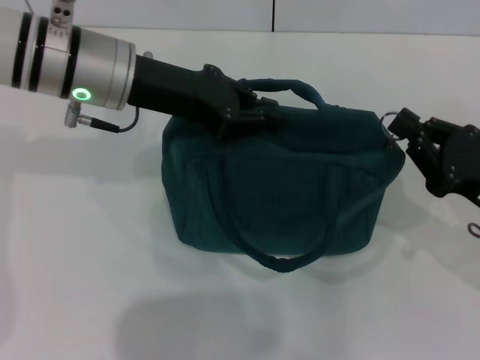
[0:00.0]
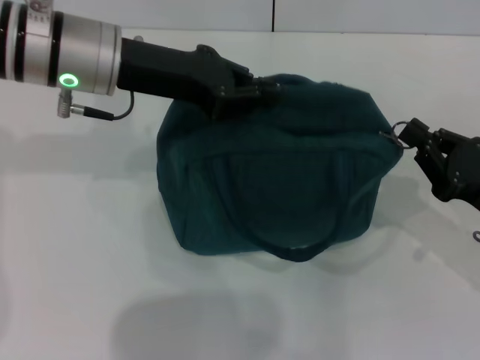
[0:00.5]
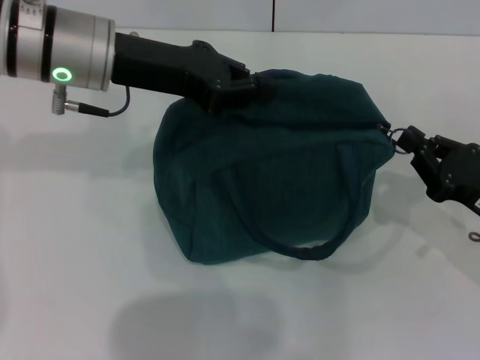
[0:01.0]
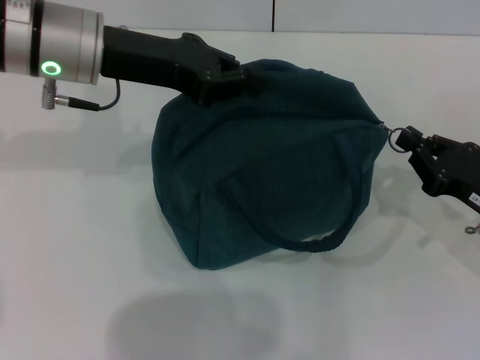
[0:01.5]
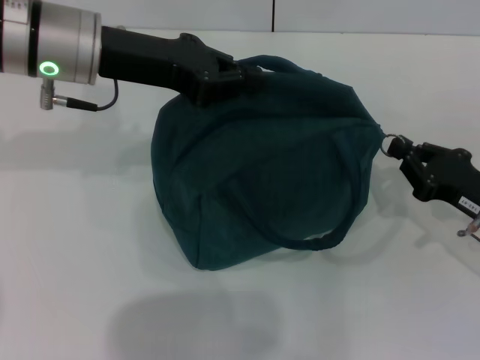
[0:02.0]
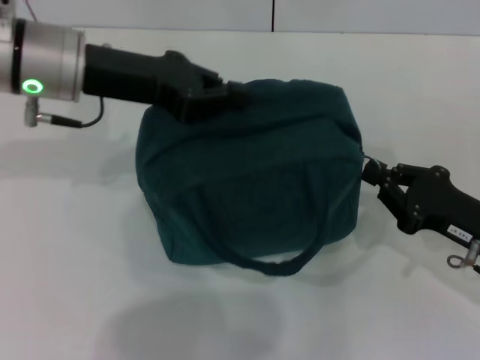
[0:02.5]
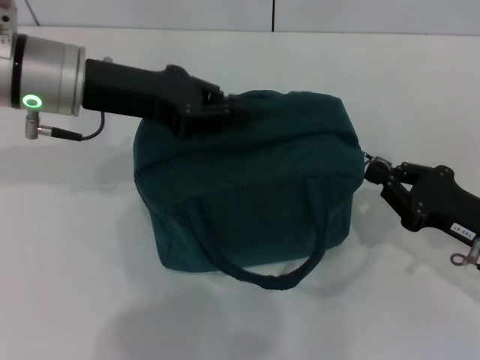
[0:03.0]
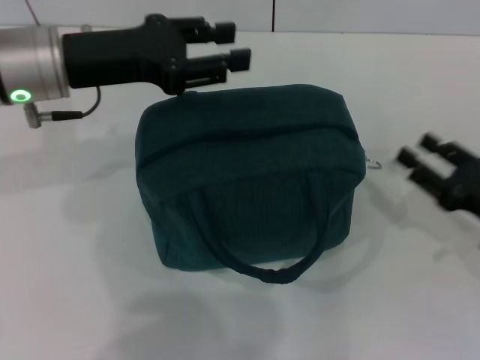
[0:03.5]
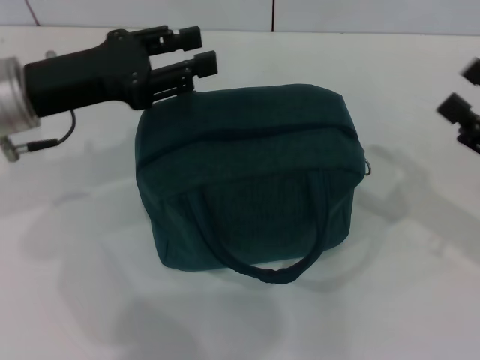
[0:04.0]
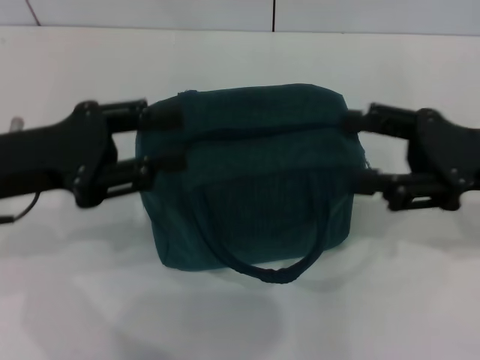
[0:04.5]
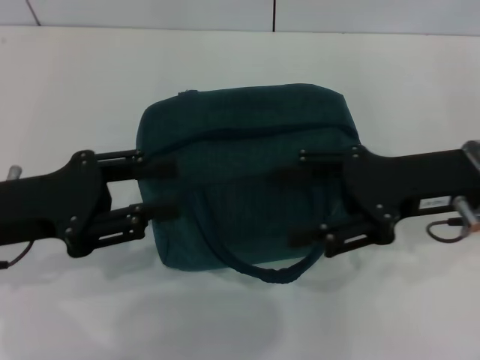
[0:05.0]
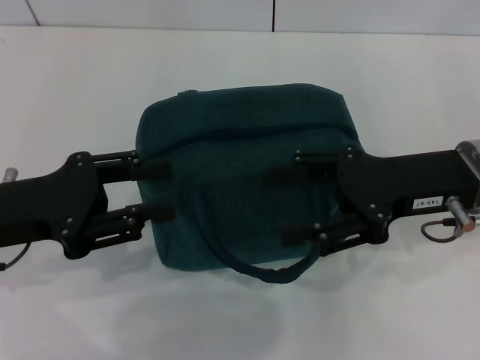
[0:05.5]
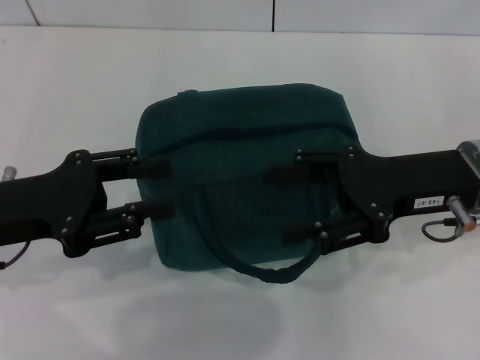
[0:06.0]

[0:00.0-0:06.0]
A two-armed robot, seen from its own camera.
Step, 0:00.0 to 0:03.0: Hold the lunch bag with your left hand.
0:00.0 to 0:02.0: The grippers move only a little.
0:02.0 to 0:04.0: The right gripper travels upward by approximately 5 cm, and opens. The left gripper goes some 5 cm to the left, and opens up.
0:04.0 to 0:06.0: The left gripper is displaced backward by approximately 10 cm, while the right gripper is displaced to the left by approximately 10 cm.

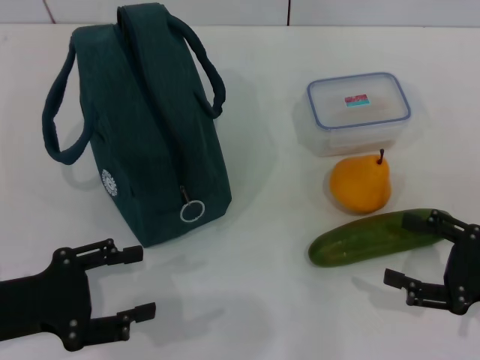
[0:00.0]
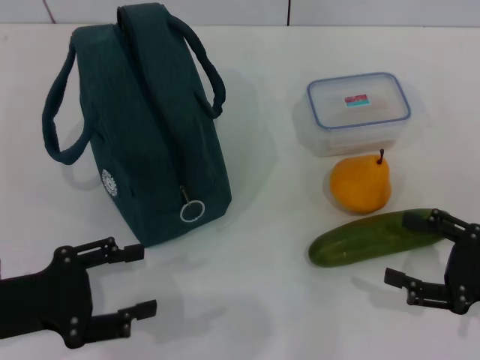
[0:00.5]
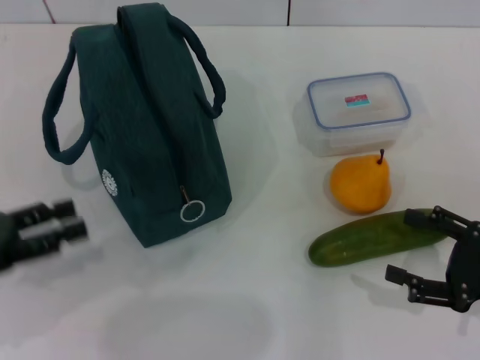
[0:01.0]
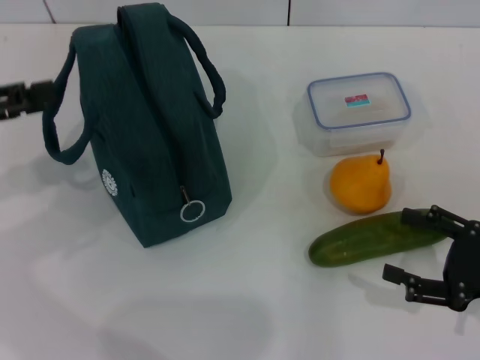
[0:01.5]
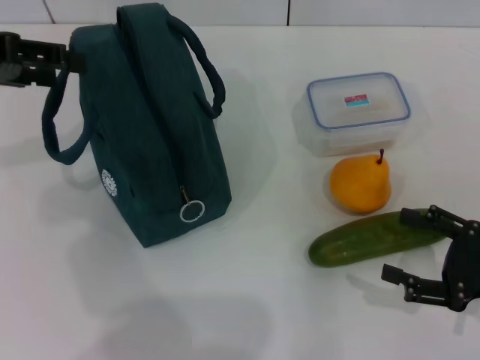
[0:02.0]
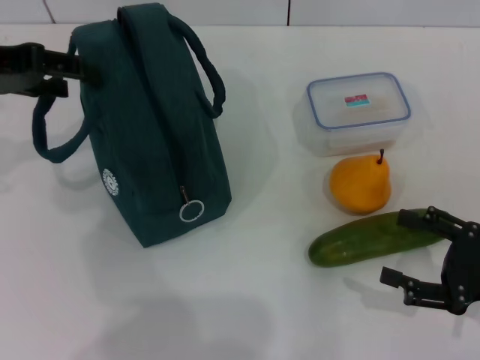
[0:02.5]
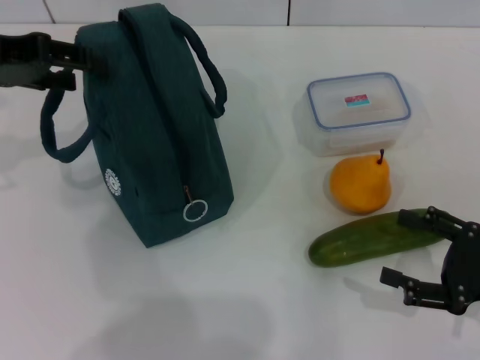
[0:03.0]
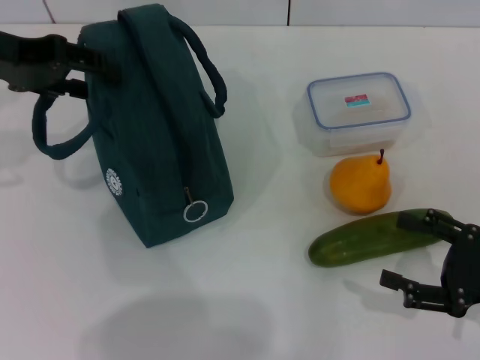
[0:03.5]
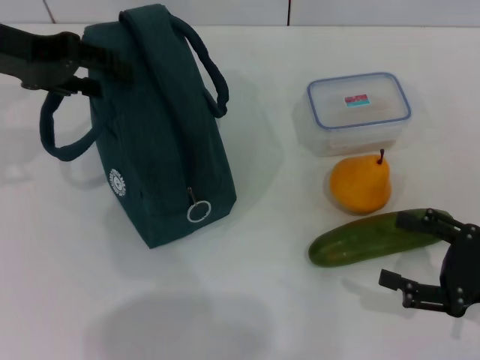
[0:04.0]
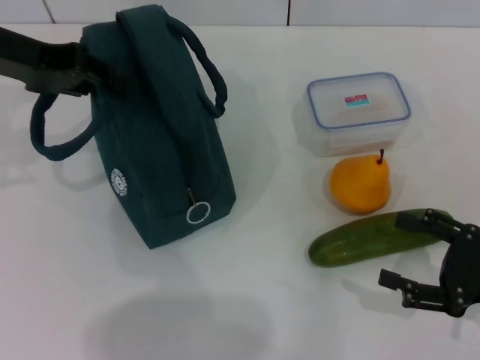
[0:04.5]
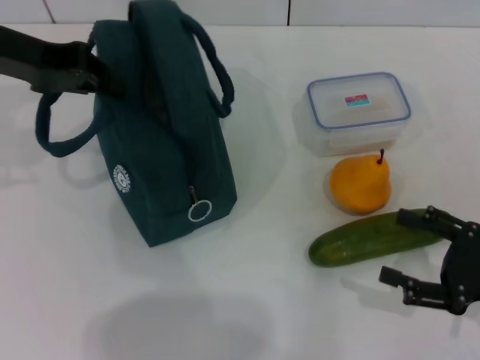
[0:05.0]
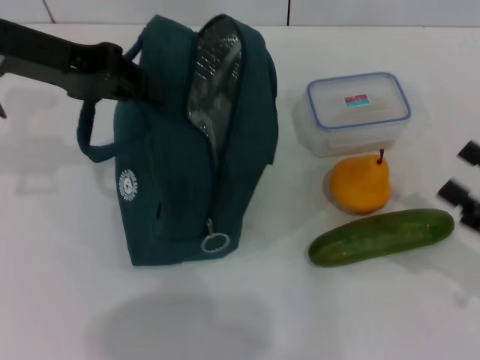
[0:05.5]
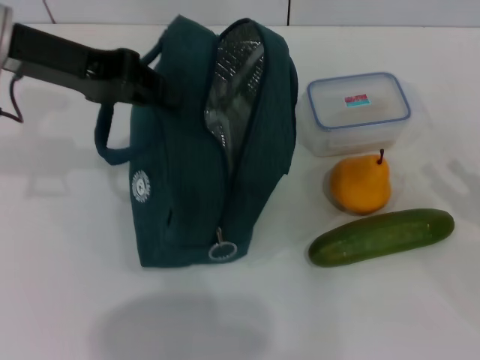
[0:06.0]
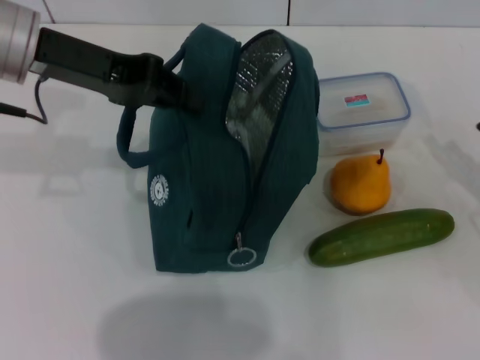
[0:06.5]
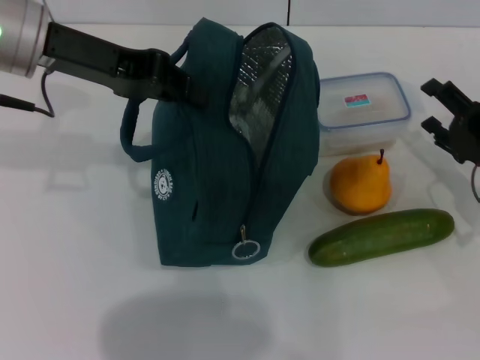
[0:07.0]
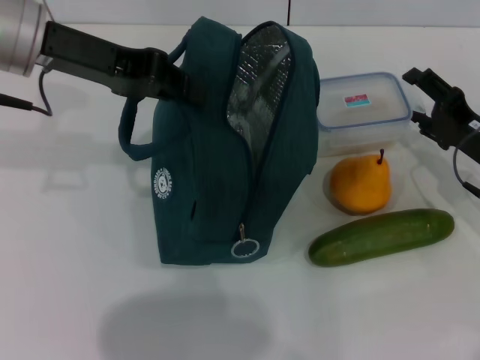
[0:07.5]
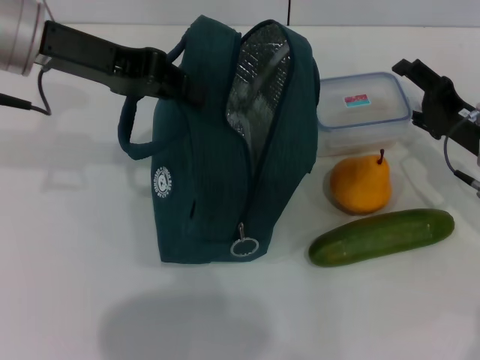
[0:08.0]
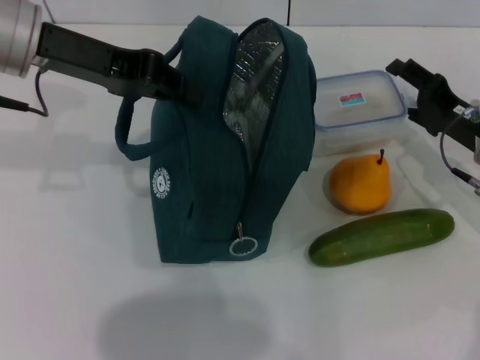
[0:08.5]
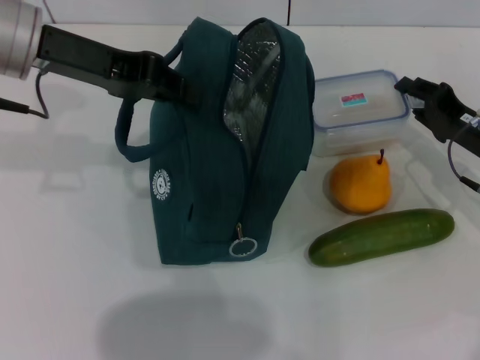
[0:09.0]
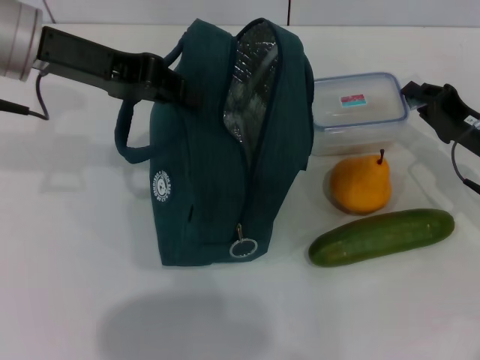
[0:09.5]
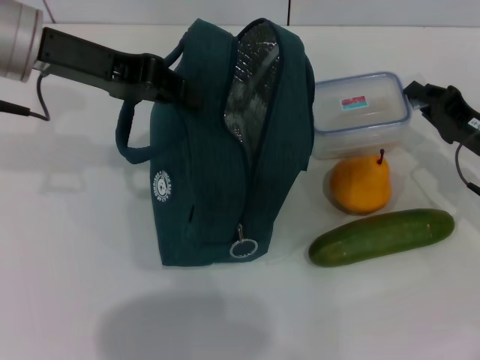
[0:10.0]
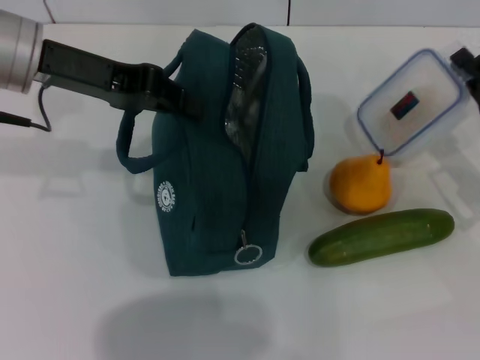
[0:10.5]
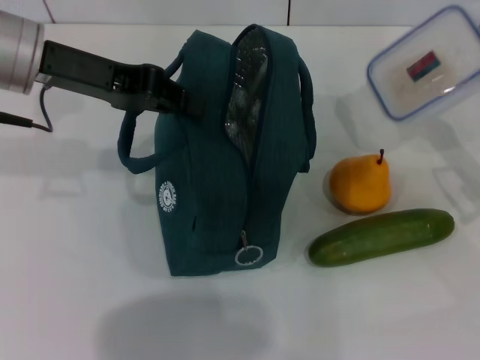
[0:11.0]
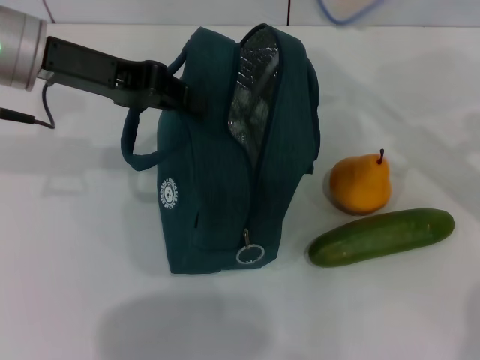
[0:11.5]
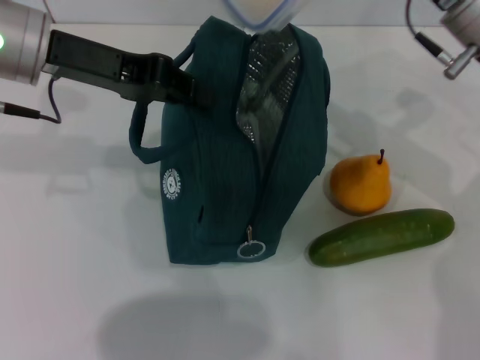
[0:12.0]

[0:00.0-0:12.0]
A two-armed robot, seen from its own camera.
Step, 0:00.0 to 0:04.5: Hold the lunch bag with your left hand.
Step, 0:05.0 to 0:09.5: Pick up the lunch box with your right hand.
0:00.0 to 0:02.0: The left gripper moves upward and forward, approximately 25 cm.
0:02.0 to 0:04.0: The left gripper ends up roughly 5 cm from where it was.
0:04.0 to 0:06.0: The left gripper closes its fingers.
0:06.0 to 0:08.0: The right gripper is displaced forward and to the left by some 15 cm.
0:08.0 to 0:10.0: The right gripper closes its fingers.
0:10.0 to 0:12.0: The right gripper goes about 15 cm upward and to the left.

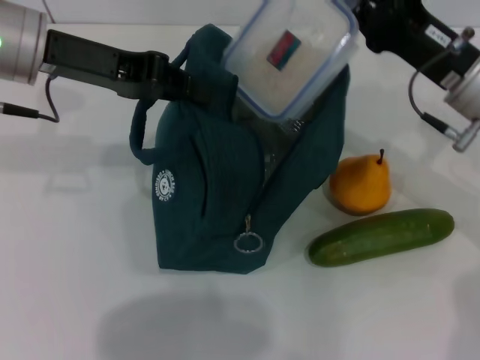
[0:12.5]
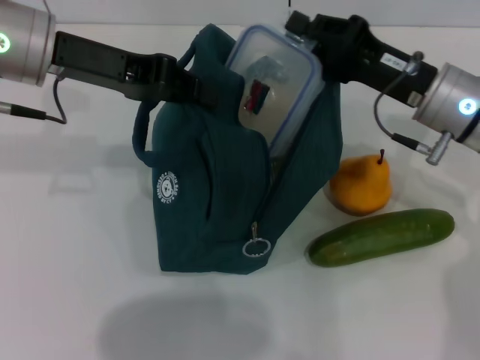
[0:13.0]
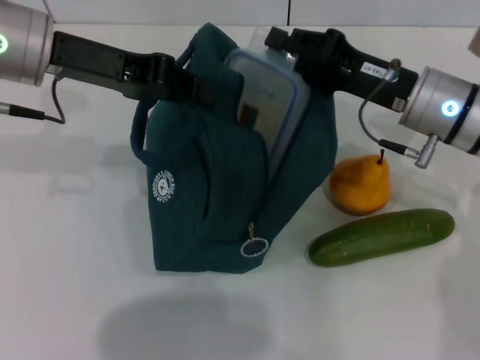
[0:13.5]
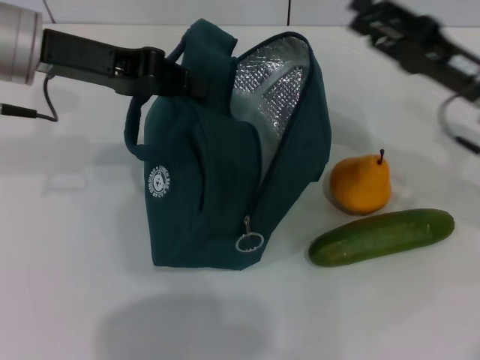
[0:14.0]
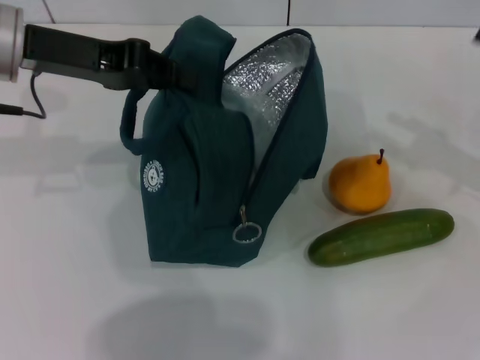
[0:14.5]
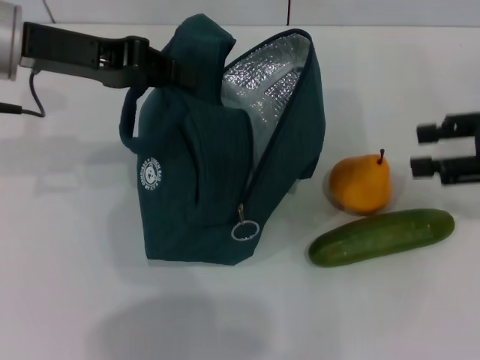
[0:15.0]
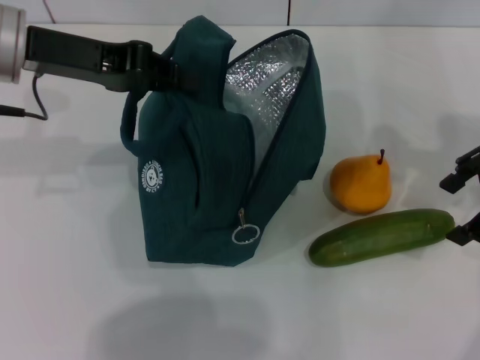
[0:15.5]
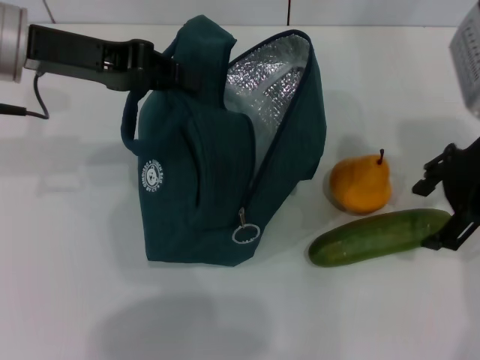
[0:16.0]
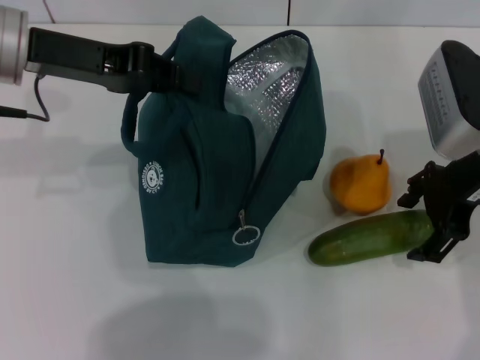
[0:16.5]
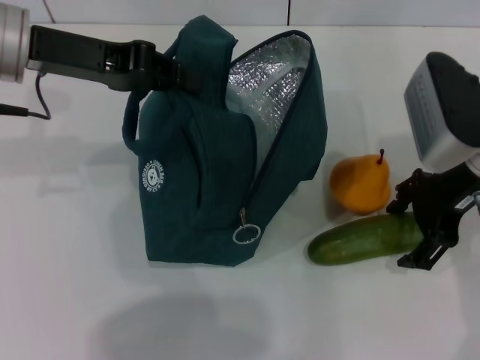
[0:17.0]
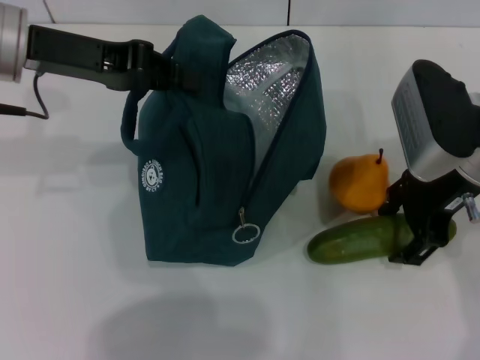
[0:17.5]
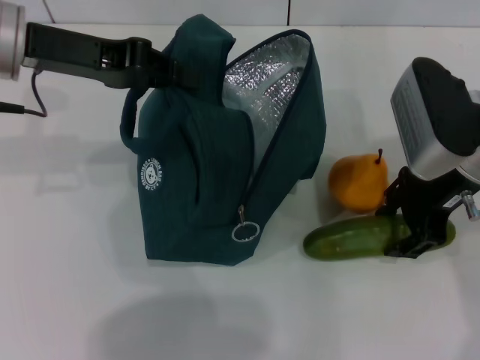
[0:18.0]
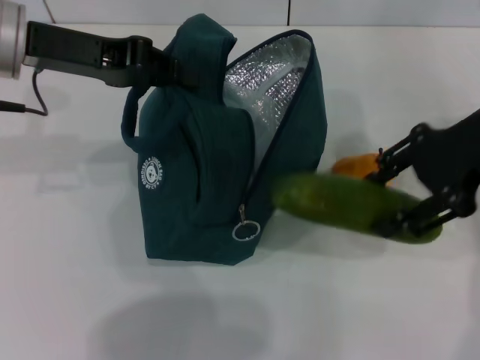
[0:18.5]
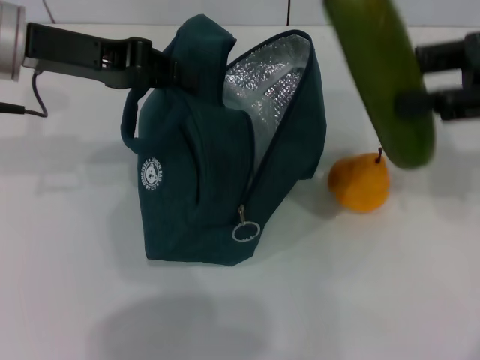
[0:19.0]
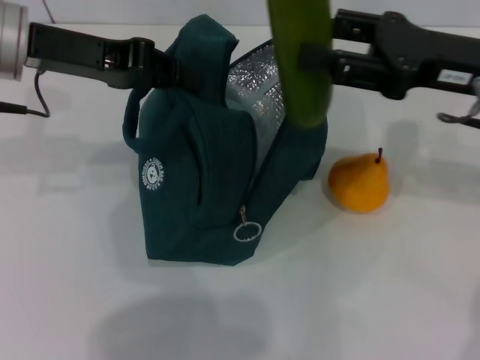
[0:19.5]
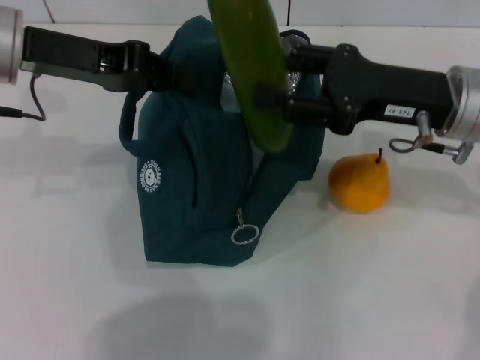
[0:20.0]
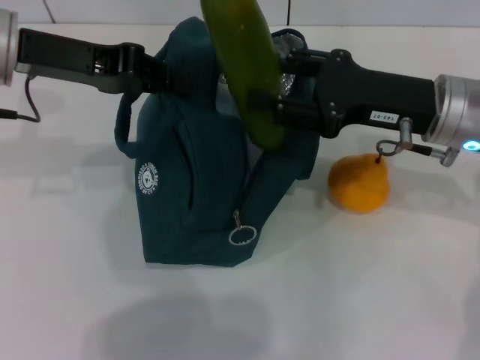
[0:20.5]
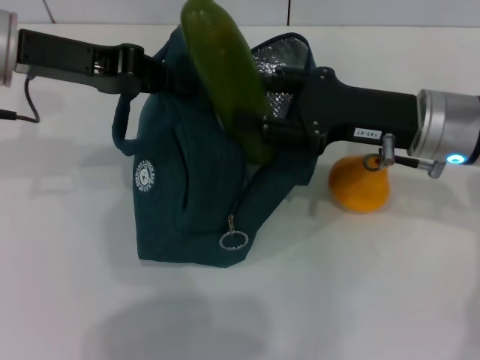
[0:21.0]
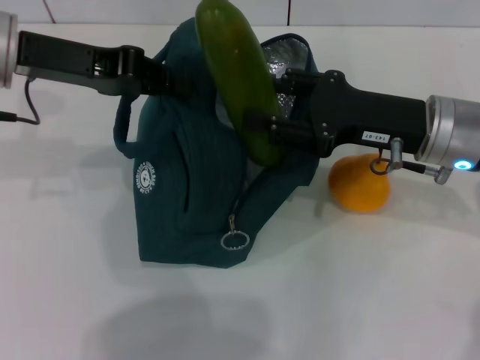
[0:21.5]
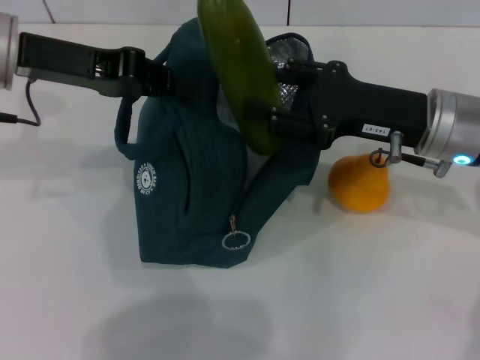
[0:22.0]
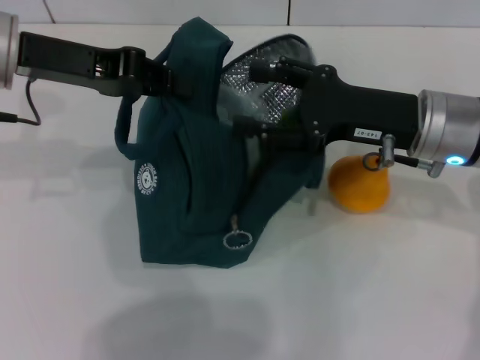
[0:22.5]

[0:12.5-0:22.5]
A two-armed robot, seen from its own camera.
Step, 0:14.0 to 0:17.5: Pick up the cucumber with your right hand.
0:12.5 to 0:14.5: The right gripper travels to the right by approximately 15 cm, and opens up.
0:14.5 to 0:16.5: The right gripper travels to the left by some 15 cm.
0:16.5 to 0:18.5: The right gripper moves upward, some 5 cm.
0:18.5 to 0:20.5: The right gripper is displaced downward by approximately 10 cm.
0:20.5 to 0:22.5: The grippers stay close to where they were, moving slightly.
